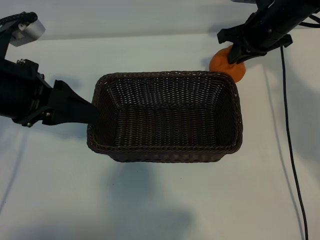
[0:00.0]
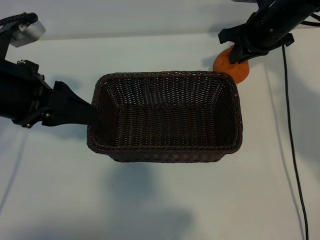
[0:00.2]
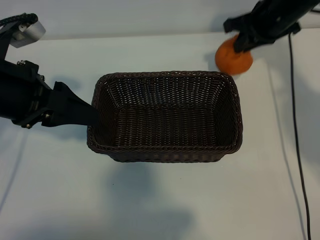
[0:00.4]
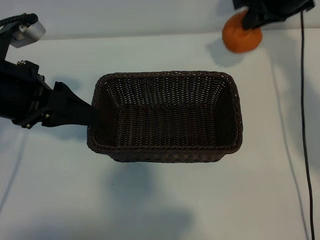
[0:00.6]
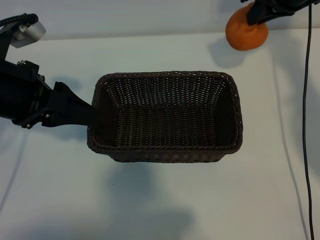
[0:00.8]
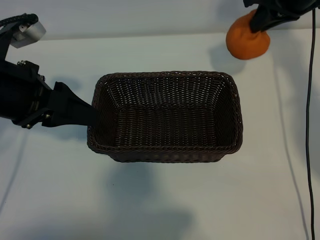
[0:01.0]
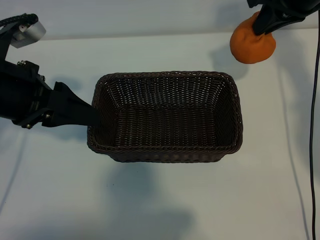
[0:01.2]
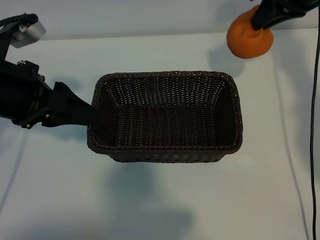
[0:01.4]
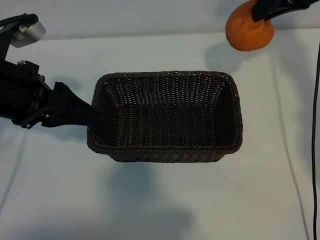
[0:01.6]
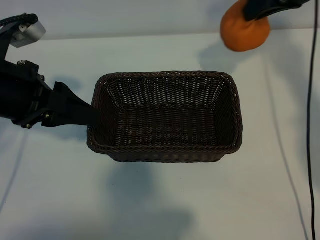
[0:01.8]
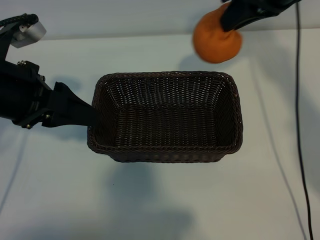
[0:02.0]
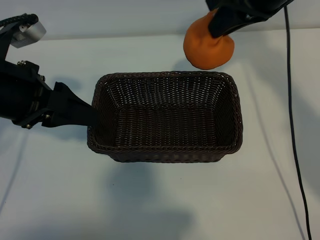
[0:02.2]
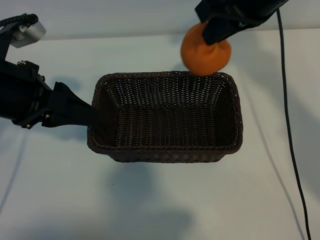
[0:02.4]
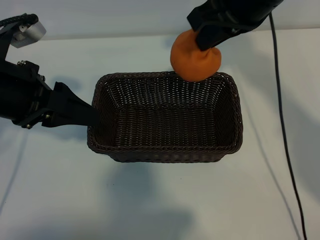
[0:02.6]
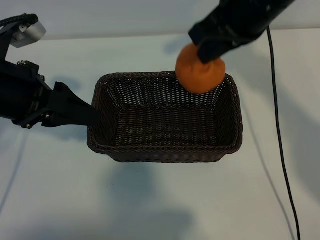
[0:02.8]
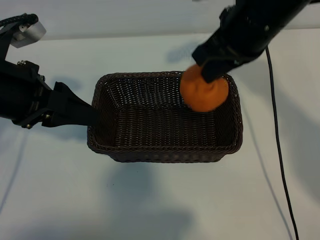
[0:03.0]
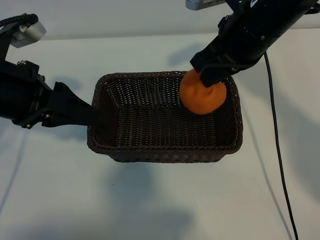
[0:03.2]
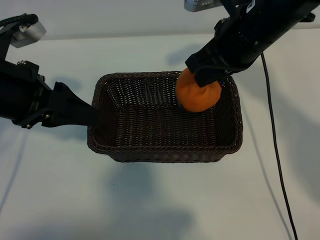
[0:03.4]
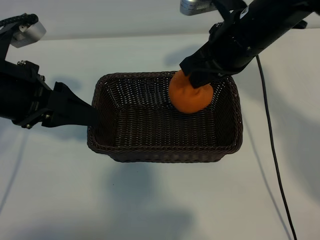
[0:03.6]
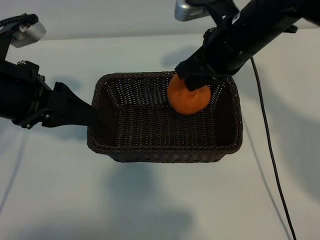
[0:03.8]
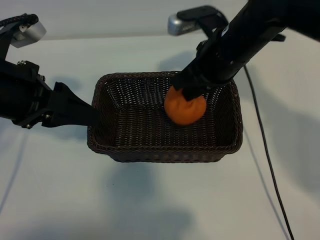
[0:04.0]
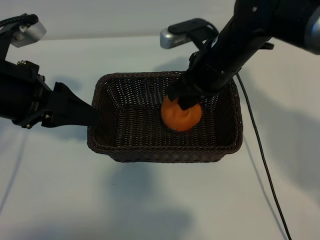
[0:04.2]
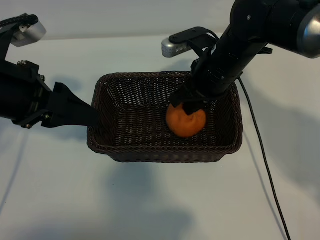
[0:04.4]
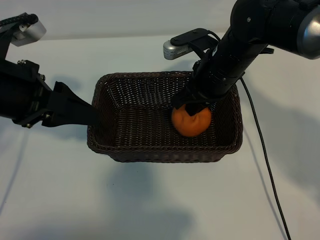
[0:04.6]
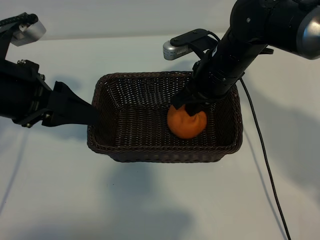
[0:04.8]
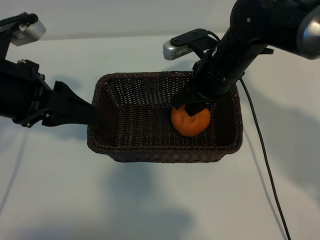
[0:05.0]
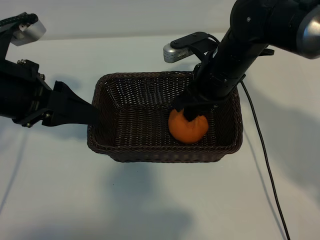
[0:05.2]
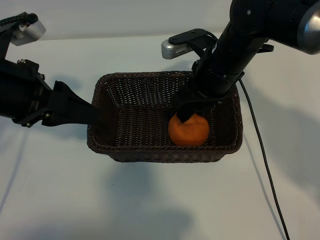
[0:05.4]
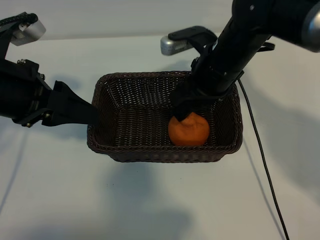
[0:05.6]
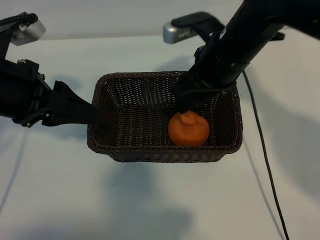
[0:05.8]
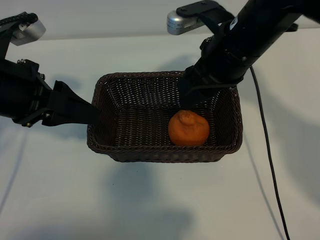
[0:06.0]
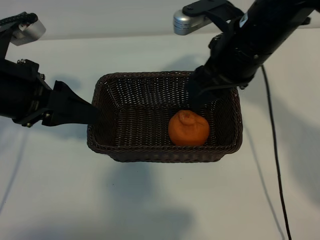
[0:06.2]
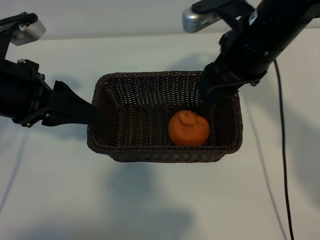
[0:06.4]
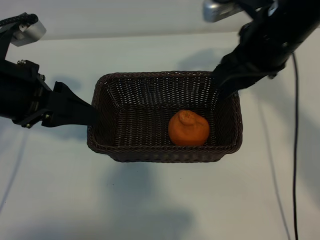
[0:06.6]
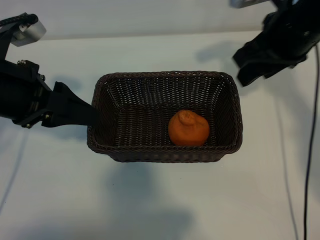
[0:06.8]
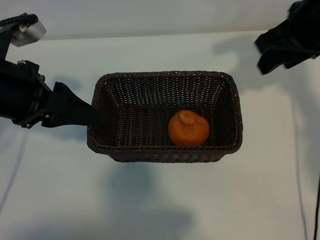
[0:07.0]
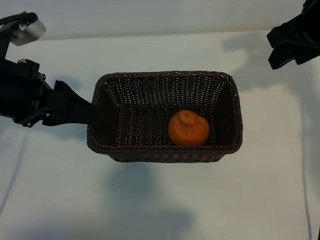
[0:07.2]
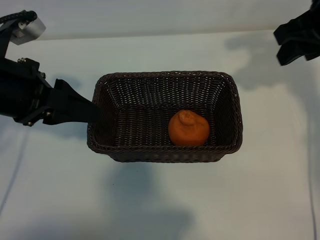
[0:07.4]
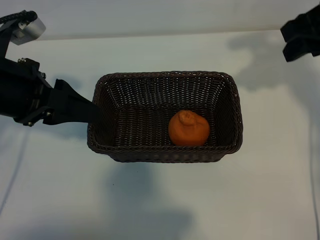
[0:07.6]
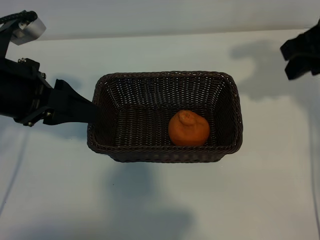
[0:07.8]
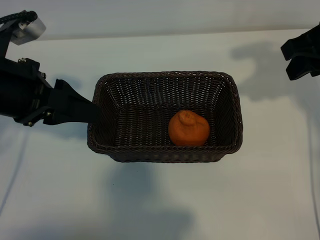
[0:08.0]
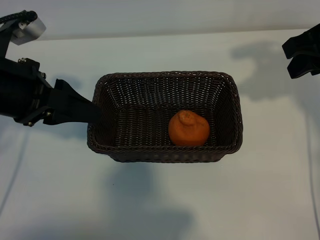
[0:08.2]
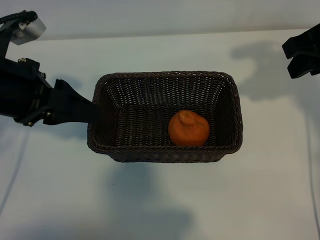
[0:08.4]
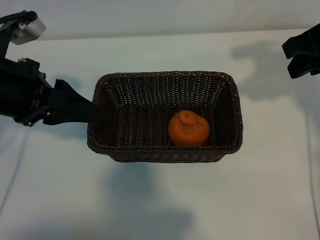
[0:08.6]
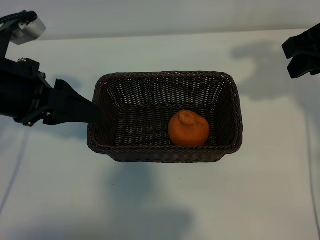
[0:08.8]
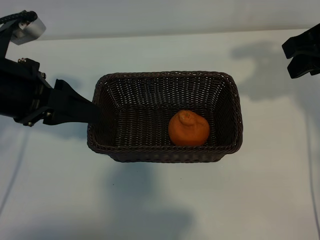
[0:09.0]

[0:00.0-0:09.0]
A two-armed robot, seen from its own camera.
Task of the whole recording: pick up the orange and put it into the basket.
Step, 0:00.0 to 0:05.2: Place the orange in the basket with right gripper.

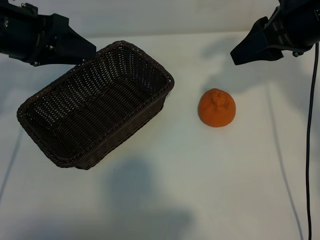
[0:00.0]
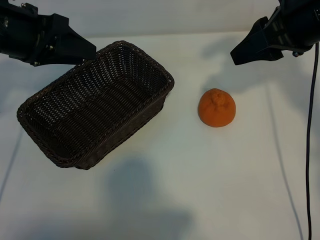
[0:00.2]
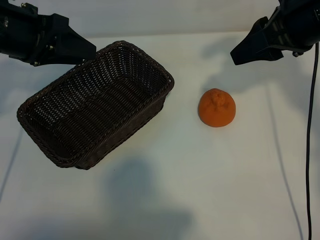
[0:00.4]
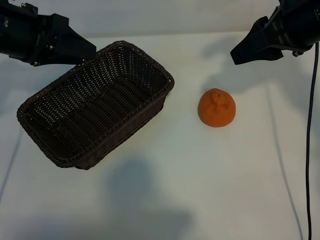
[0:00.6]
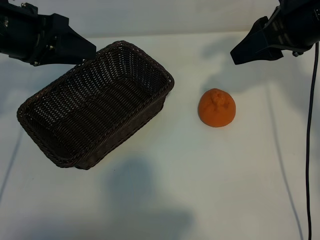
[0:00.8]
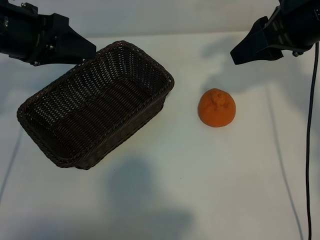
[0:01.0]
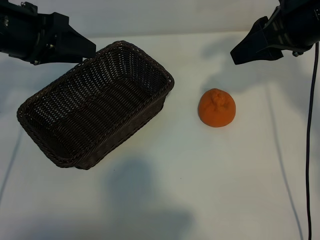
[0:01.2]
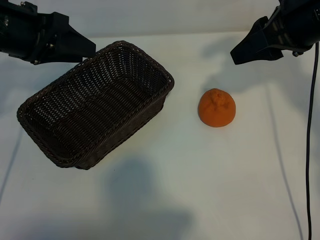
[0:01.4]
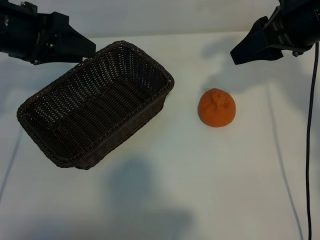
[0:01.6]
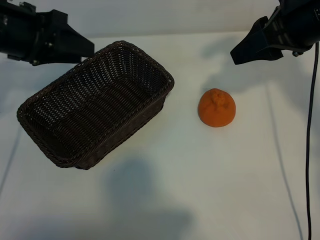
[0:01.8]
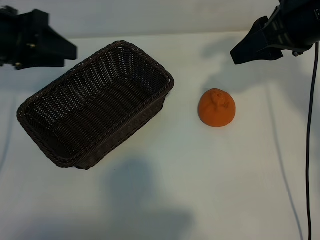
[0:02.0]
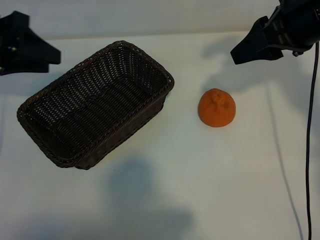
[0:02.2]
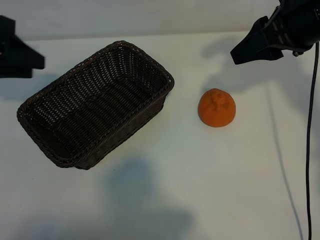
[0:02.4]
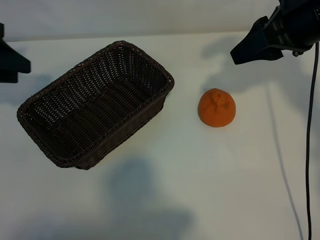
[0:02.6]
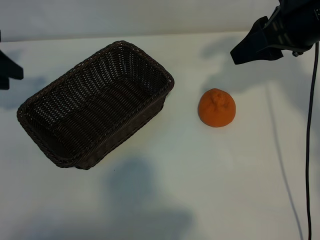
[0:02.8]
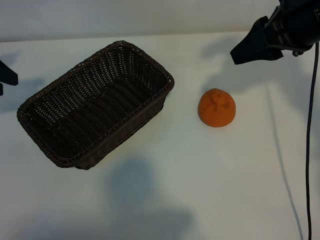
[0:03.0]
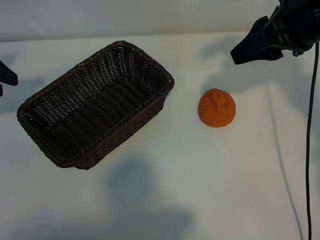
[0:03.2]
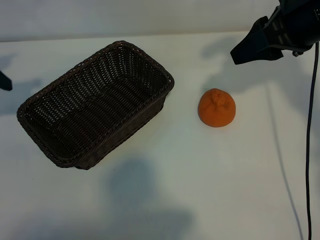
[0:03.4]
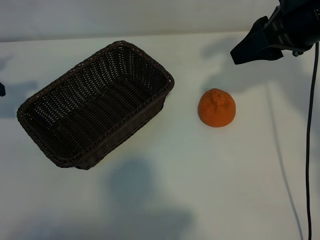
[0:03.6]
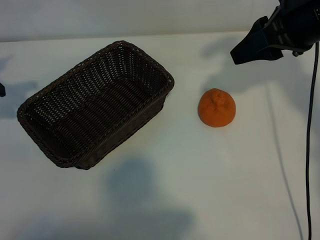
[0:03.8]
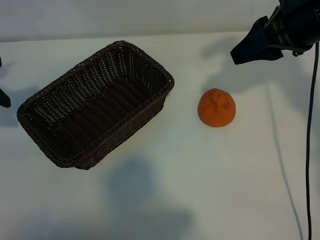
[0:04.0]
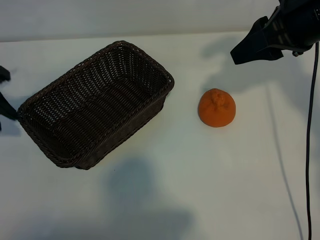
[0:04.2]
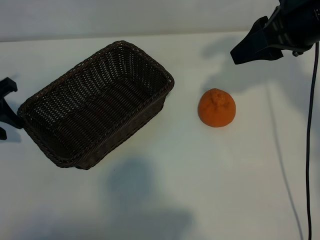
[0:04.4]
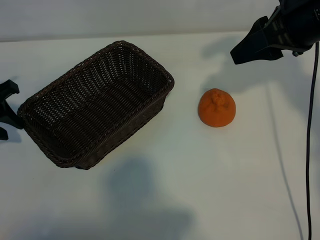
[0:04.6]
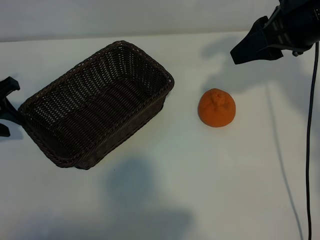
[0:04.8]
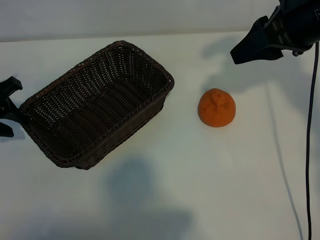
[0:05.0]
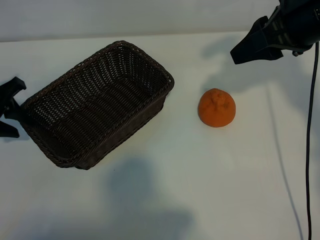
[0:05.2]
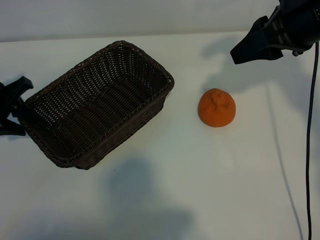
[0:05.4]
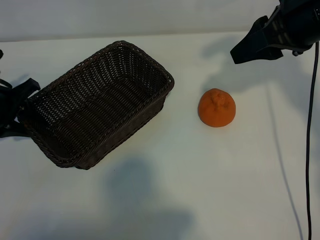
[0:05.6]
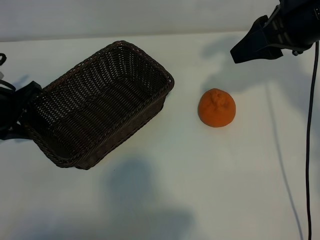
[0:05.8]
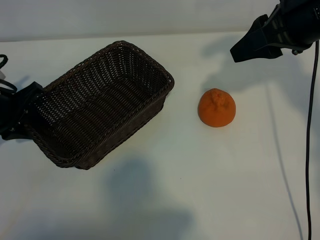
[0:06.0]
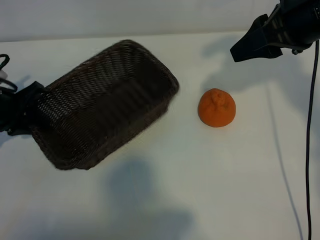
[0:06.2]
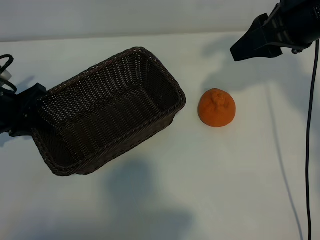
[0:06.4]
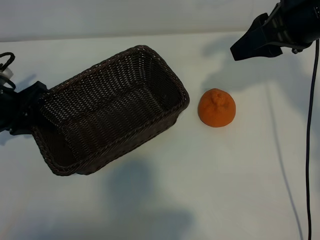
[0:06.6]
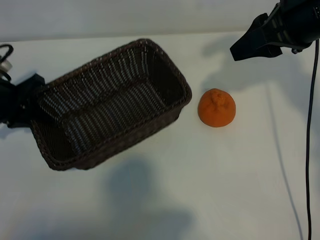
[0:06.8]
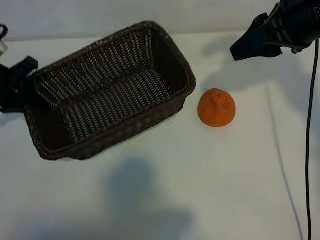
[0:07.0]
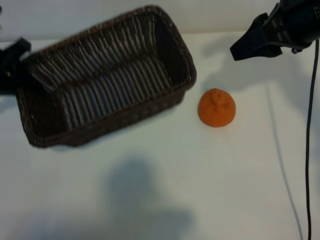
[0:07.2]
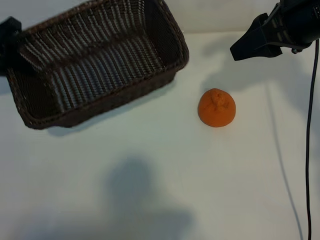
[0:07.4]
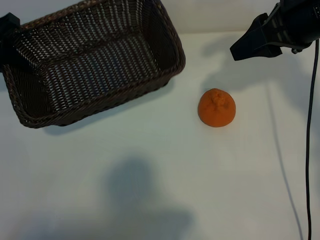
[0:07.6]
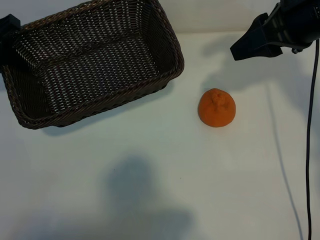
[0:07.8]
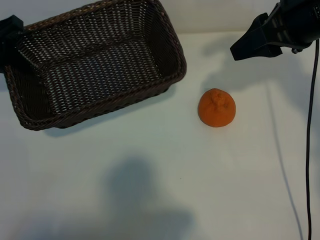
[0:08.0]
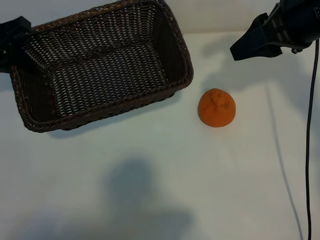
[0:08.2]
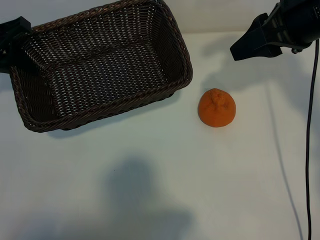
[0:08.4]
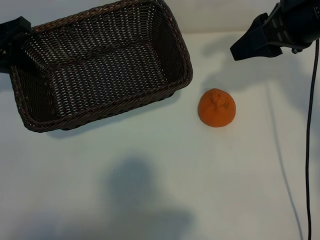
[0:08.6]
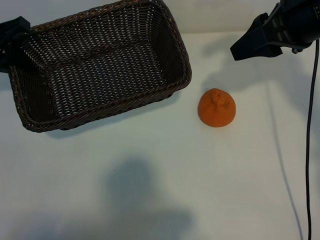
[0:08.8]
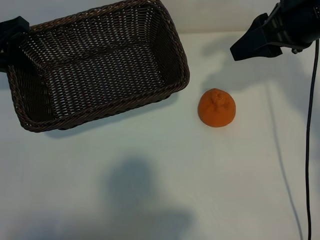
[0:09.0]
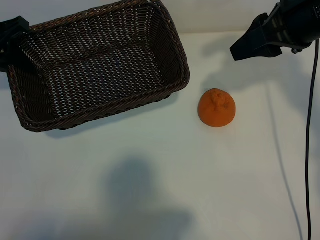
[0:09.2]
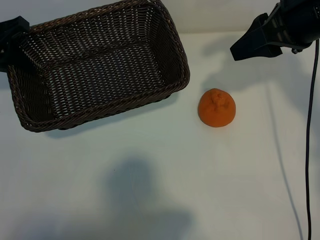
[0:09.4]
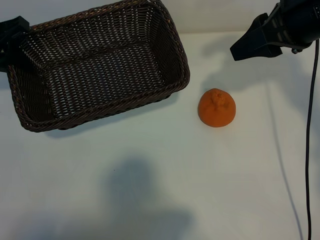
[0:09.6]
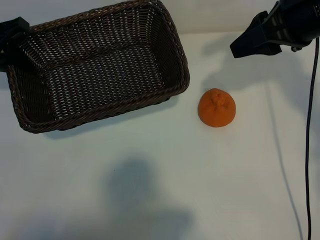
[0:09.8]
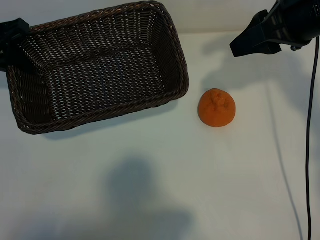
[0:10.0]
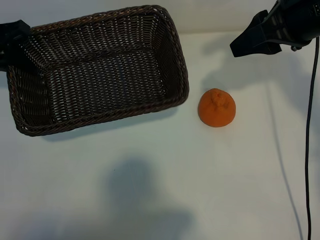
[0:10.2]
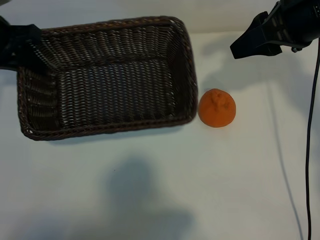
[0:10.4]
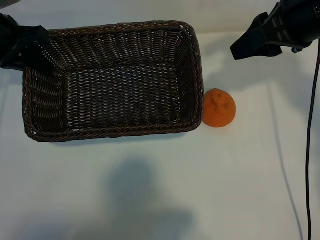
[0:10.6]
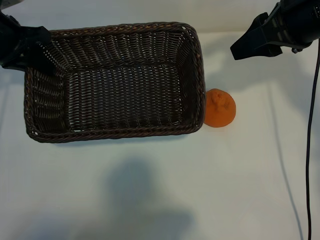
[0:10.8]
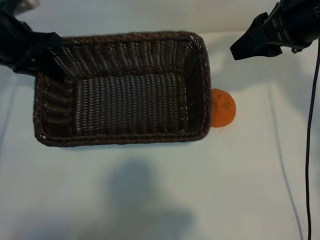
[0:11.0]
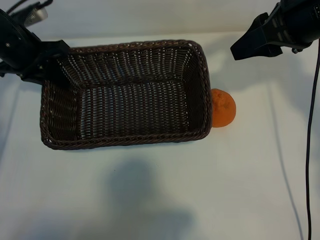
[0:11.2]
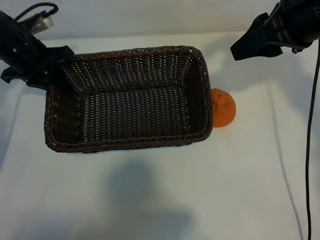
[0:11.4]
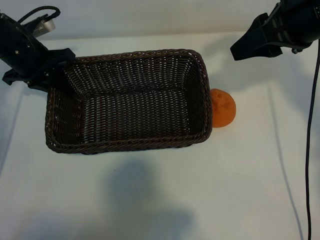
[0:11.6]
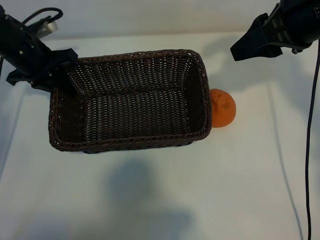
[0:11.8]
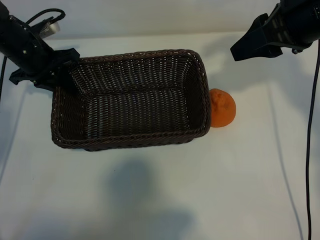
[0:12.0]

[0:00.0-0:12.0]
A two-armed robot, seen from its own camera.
Task of the whole recording: pick up the orange and put it into the basket.
Step, 0:01.0 to 0:06.2: Grasp the basket with left gripper.

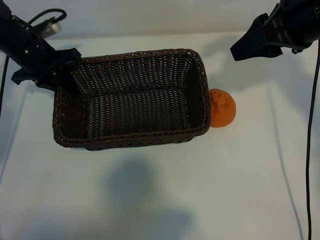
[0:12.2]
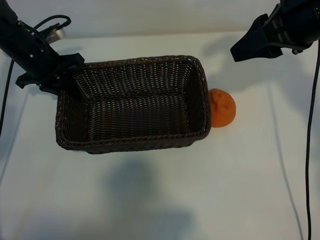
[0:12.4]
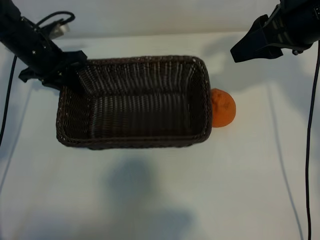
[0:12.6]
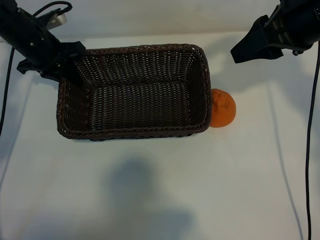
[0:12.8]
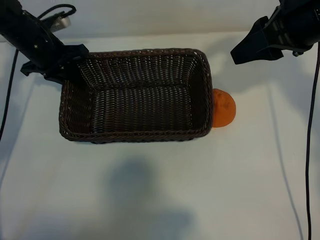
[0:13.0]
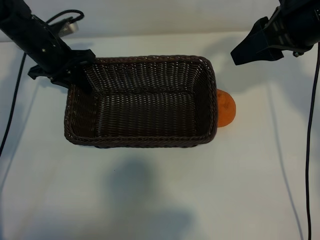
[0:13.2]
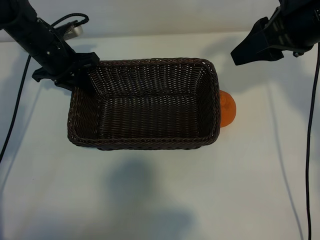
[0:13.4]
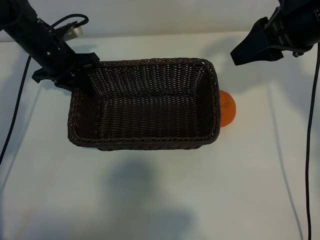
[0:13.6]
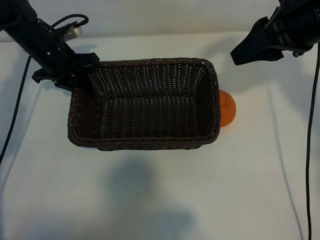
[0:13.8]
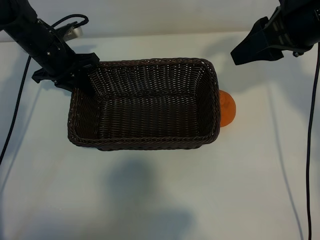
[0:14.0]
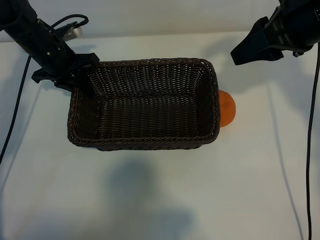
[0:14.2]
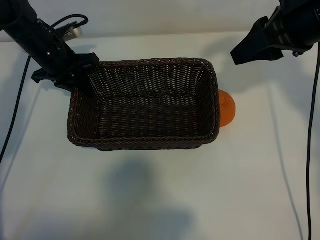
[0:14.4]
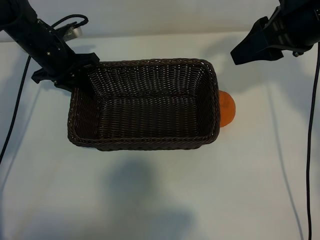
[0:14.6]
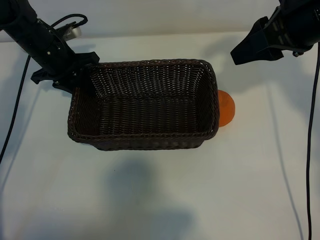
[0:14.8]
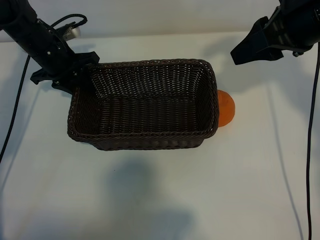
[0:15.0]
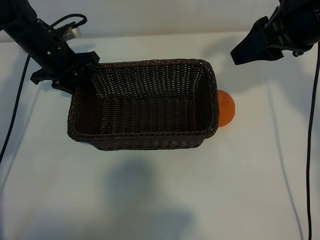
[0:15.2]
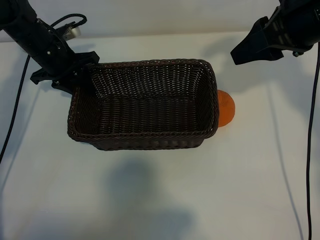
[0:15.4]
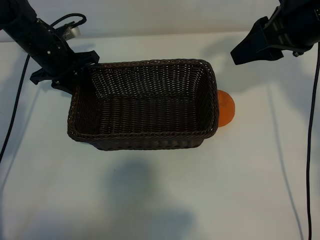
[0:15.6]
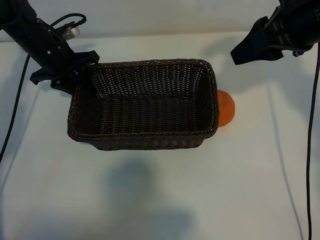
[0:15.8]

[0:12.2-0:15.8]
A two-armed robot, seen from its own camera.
Task of the whole recording: pick up the orange and put it into the basket.
Step, 0:12.2 to 0:14.8: Place the basket in the center of view with left gripper.
